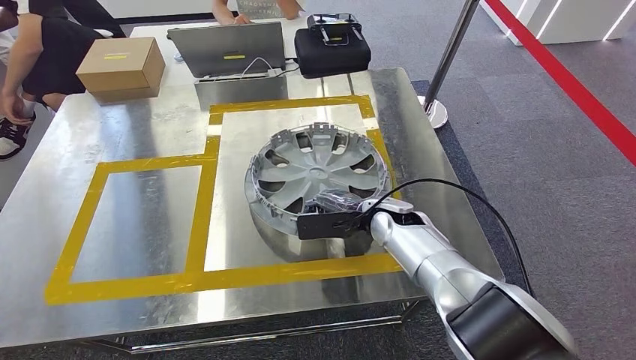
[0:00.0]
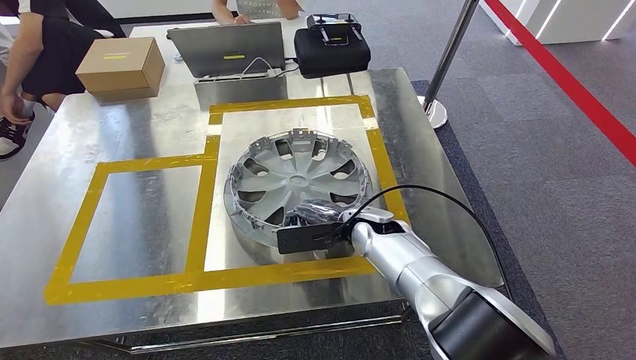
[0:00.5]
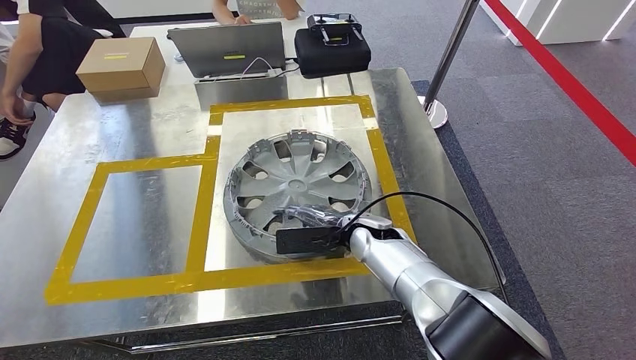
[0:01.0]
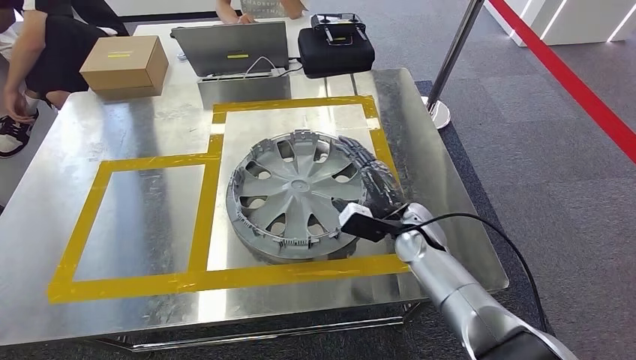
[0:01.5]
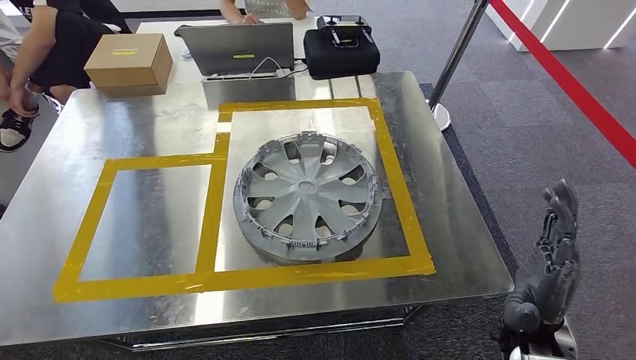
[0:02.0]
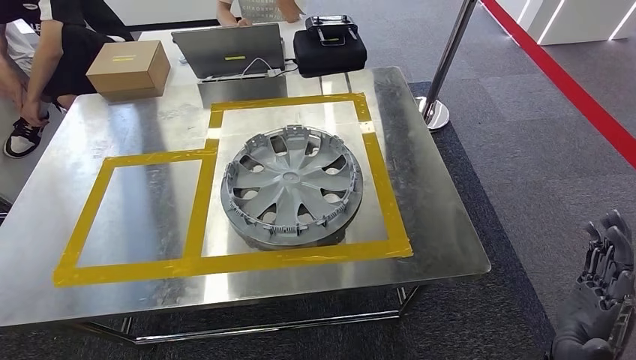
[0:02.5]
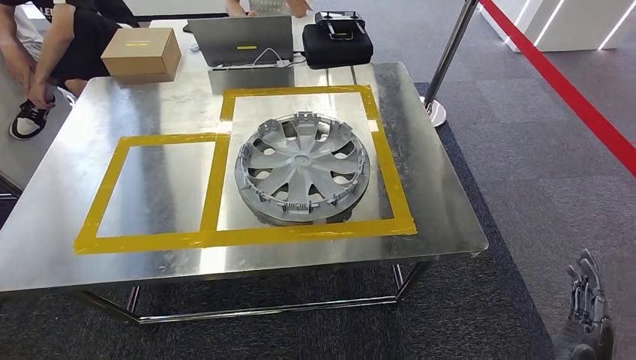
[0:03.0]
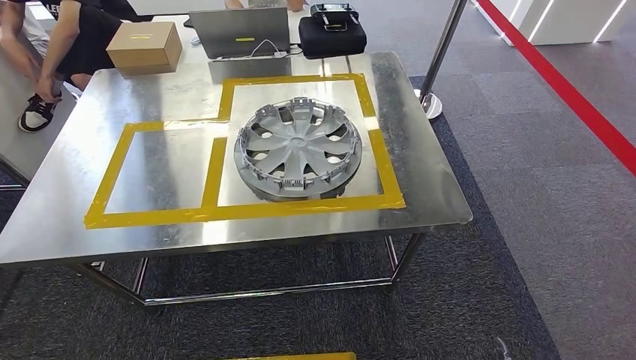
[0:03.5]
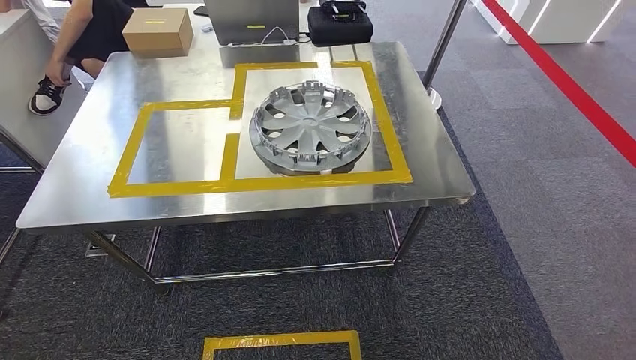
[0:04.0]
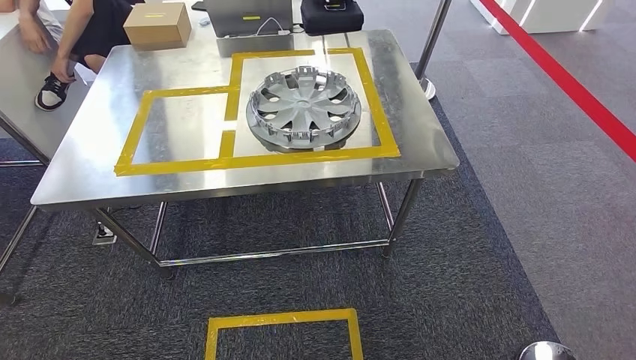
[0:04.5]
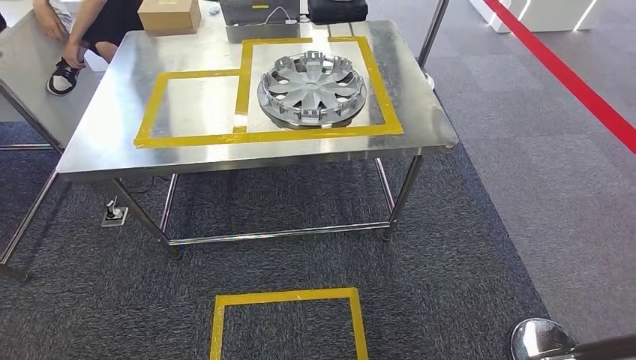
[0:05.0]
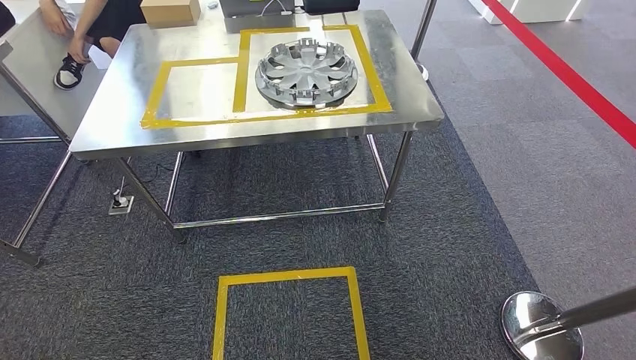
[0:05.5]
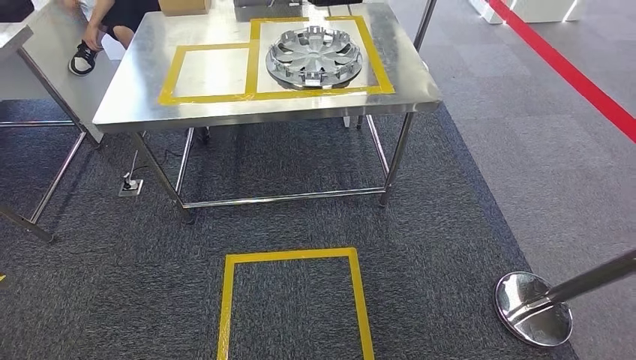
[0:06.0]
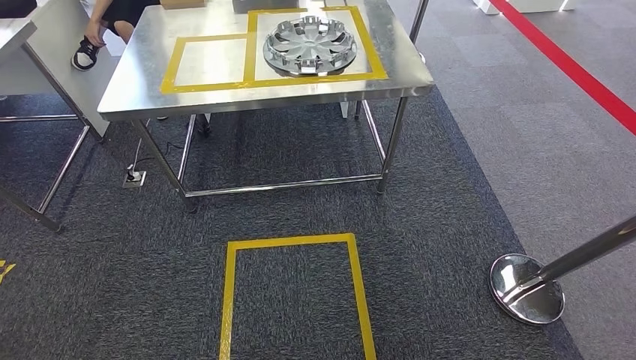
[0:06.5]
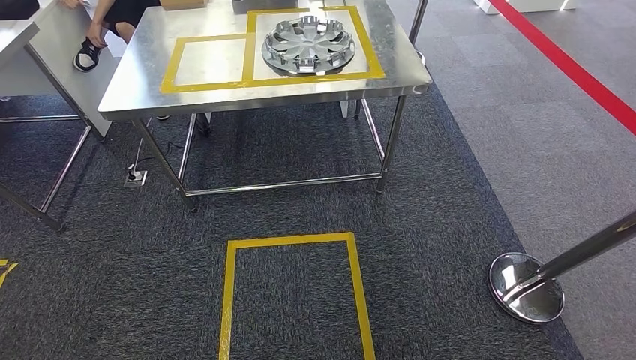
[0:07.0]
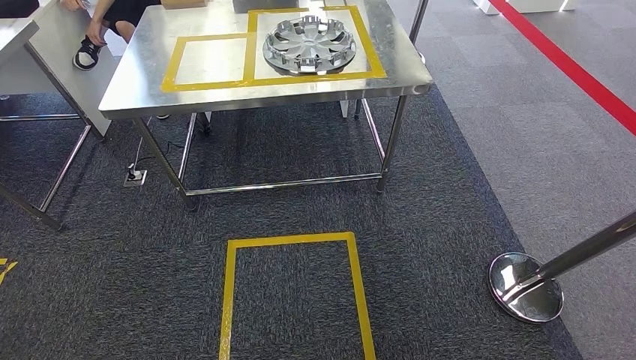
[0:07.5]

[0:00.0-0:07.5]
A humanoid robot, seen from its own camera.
Step, 0:00.0 to 0:02.0: Insert the small parts into the corresponding slots on the workbench.
Step, 0:02.5 to 0:07.5: Return to the initial position at the workbench.
